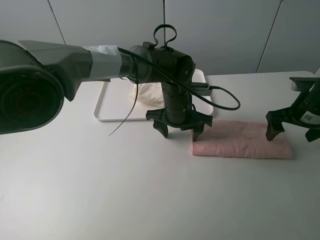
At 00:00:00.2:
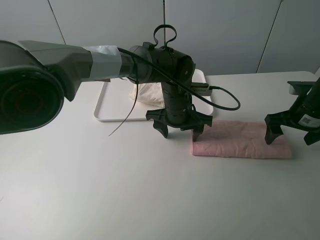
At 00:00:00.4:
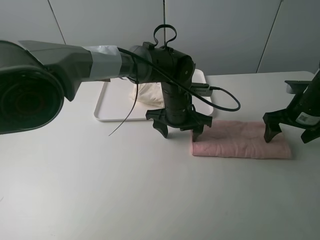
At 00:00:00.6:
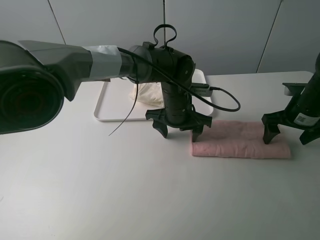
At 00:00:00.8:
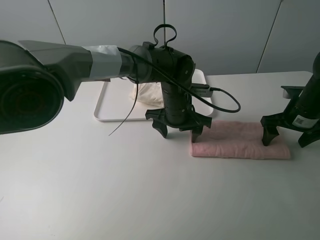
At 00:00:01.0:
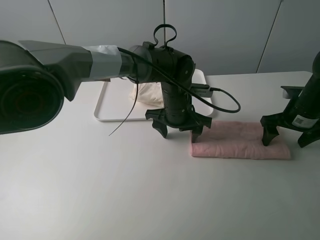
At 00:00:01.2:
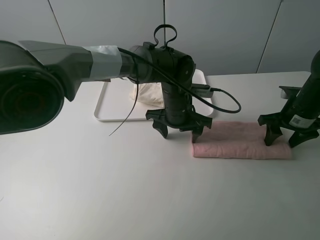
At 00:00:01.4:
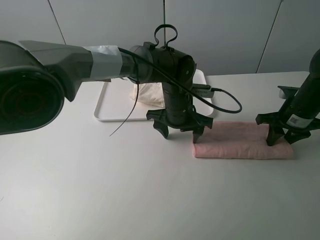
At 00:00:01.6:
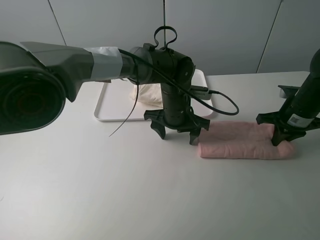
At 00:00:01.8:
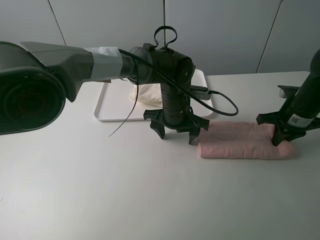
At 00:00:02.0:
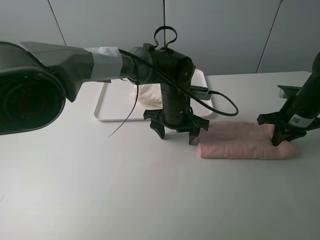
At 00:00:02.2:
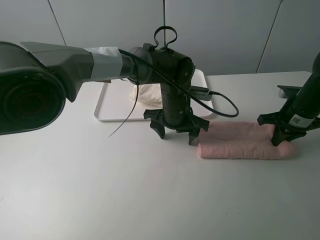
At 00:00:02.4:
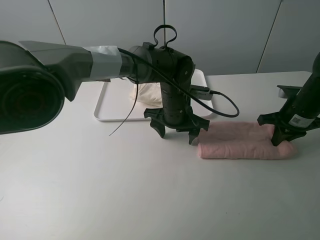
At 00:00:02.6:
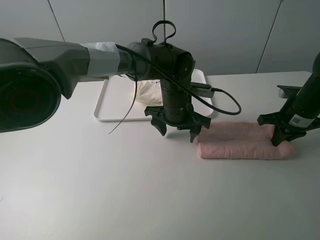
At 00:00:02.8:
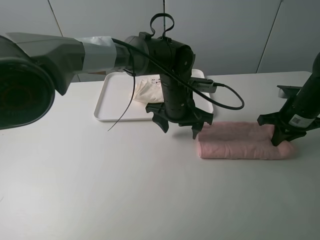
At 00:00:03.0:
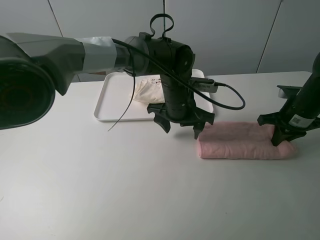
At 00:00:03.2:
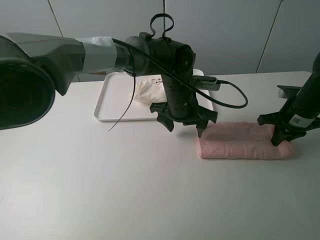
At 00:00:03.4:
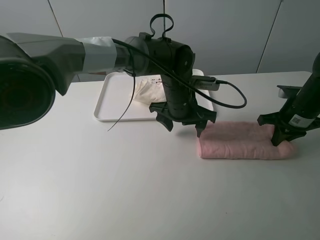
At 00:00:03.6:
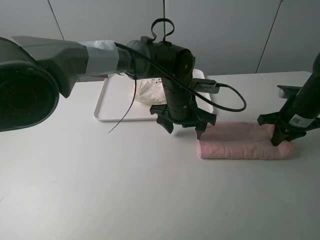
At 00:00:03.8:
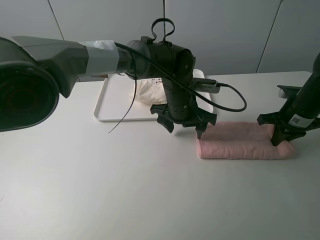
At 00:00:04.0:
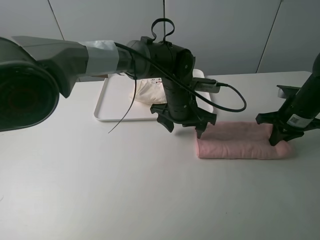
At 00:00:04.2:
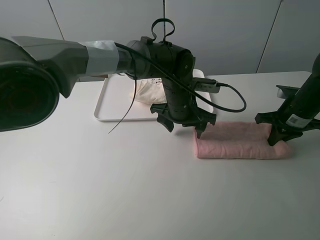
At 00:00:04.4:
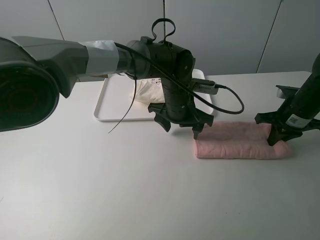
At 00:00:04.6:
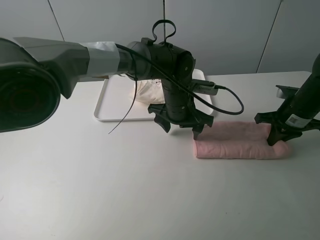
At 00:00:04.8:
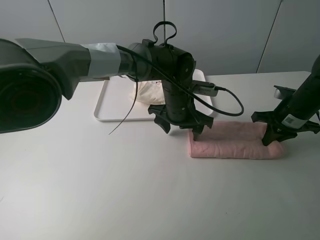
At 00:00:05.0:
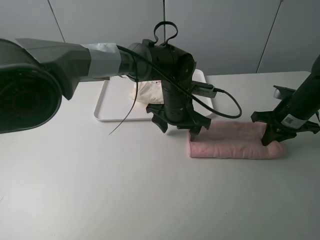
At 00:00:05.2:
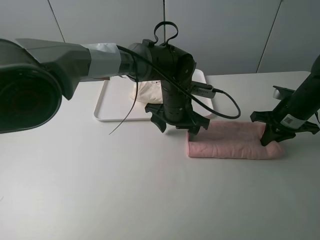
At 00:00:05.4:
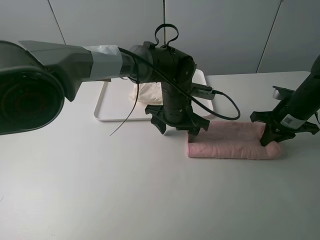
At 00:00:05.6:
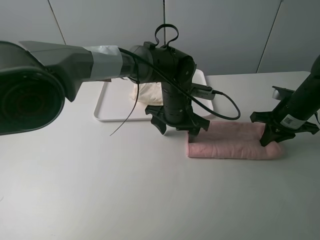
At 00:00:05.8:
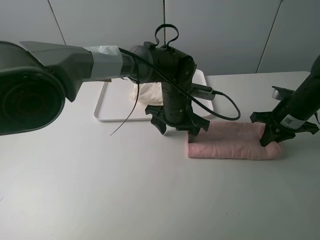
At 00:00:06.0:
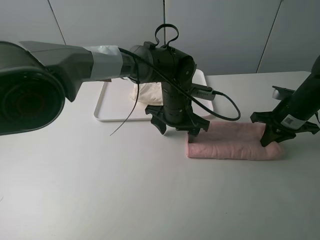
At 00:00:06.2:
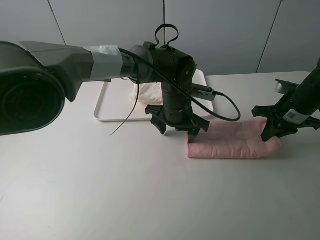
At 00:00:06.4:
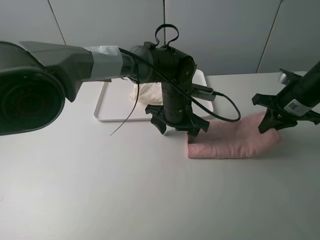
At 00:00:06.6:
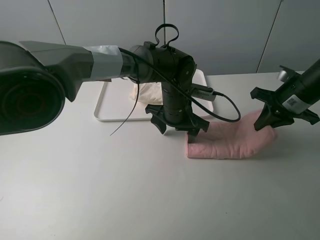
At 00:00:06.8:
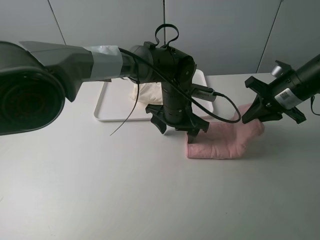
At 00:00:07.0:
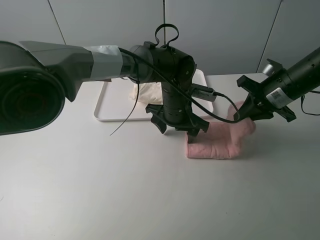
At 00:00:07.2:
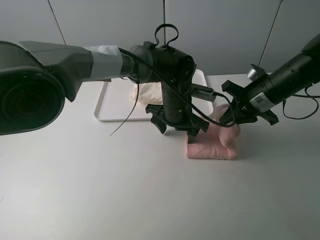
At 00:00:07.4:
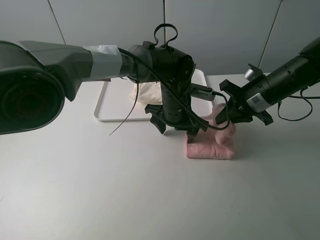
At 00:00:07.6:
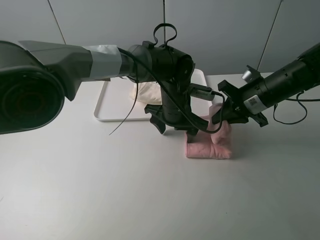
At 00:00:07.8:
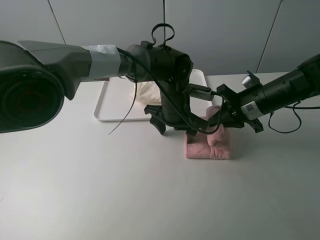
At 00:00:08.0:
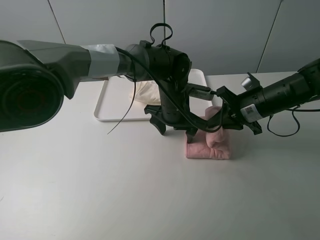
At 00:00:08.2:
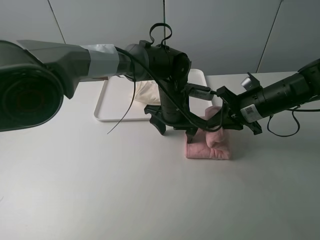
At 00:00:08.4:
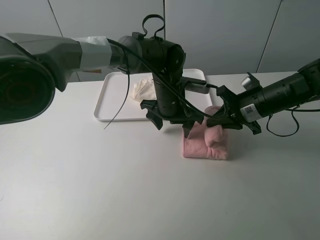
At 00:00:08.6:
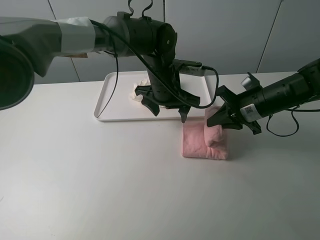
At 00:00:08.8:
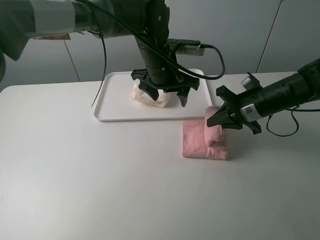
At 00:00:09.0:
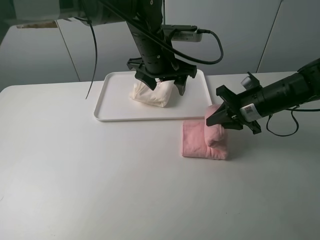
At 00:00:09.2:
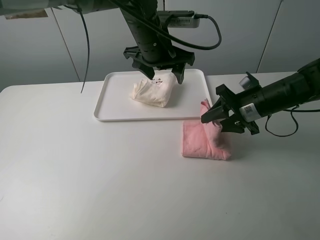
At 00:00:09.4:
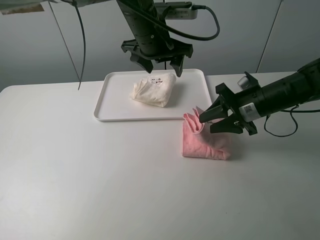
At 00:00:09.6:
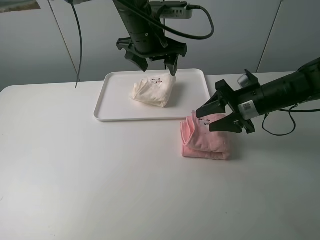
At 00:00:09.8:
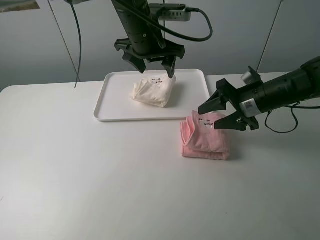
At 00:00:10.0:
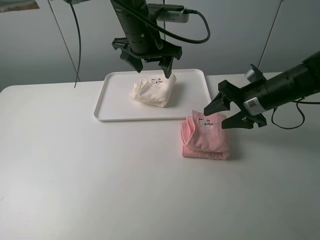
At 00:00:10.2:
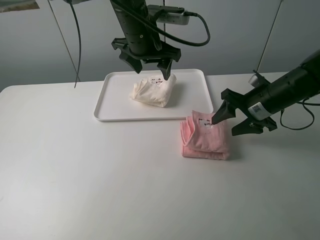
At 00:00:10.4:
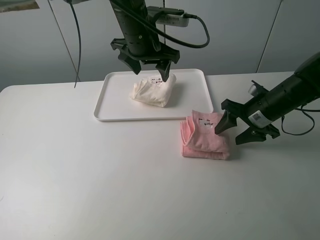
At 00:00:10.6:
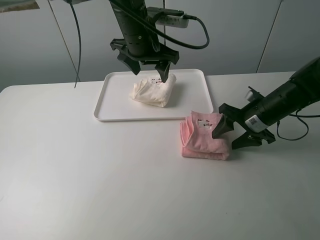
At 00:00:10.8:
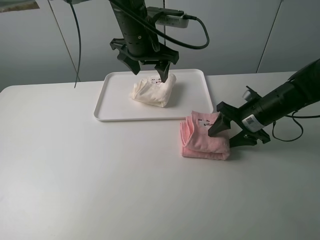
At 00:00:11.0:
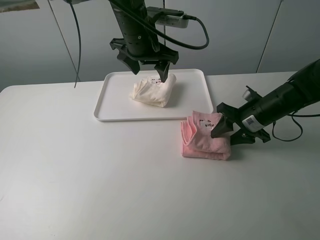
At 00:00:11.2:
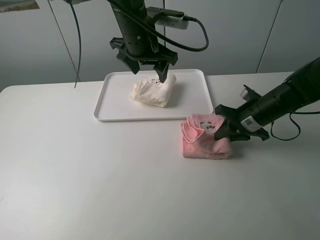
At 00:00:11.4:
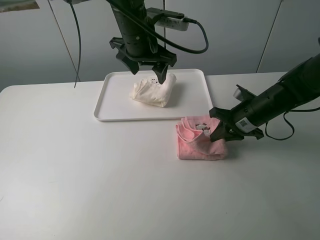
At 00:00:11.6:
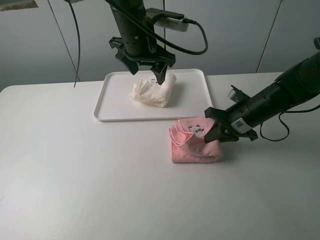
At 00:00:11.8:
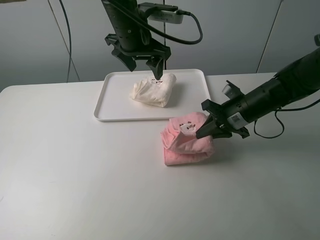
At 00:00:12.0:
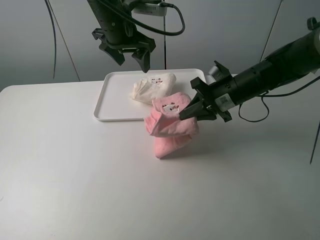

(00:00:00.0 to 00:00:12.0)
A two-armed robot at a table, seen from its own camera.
Task of the whole recording: fold one of the towels by two grippers and place it on the tray,then fold another towel by two grippers and place it on the folded towel.
Step, 00:00:00.0 - 00:00:01.8: Grasp the pink towel with the right gripper.
Step, 00:00:02.0 - 00:00:10.2: Fold the pink towel from right to left with right gripper.
Step, 00:00:10.4 - 00:00:11.4: Grasp the pink towel with the right gripper.
00:00:00.0 - 00:00:01.6: The right gripper closes its fingers.
00:00:01.6 - 00:00:03.0: There are only small adjustments of the grippers.
00:00:03.0 - 00:00:04.4: Neither gripper changes place.
00:00:04.4 - 00:00:06.0: The grippers make only small movements.
00:00:06.0 - 00:00:07.6: The right gripper is displaced to the left by about 10 cm.
00:00:07.6 - 00:00:09.0: The left gripper shifts roughly 10 cm upward.
00:00:09.0 - 00:00:10.4: The right gripper opens.
00:00:10.4 - 00:00:12.0: Both grippers move to the left, approximately 5 cm. The right gripper closes up.

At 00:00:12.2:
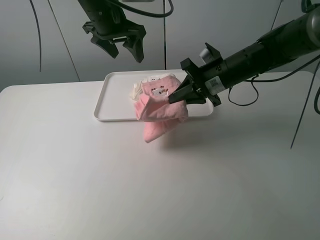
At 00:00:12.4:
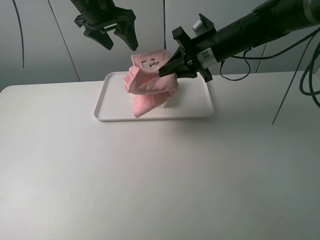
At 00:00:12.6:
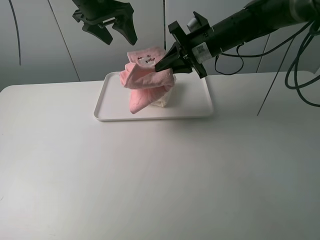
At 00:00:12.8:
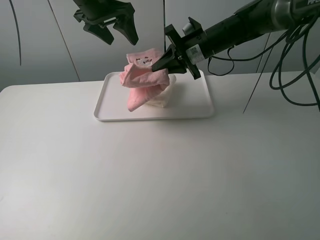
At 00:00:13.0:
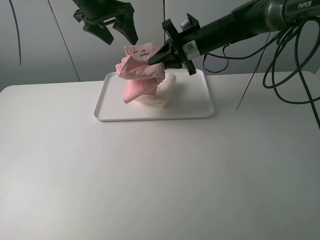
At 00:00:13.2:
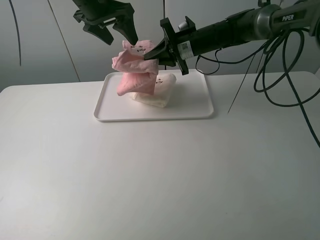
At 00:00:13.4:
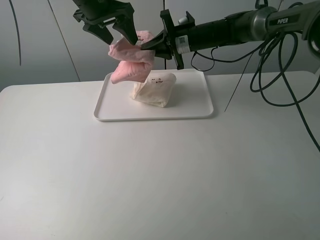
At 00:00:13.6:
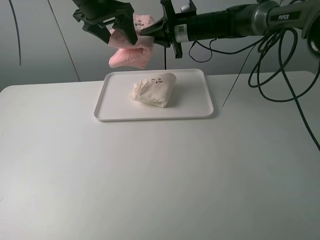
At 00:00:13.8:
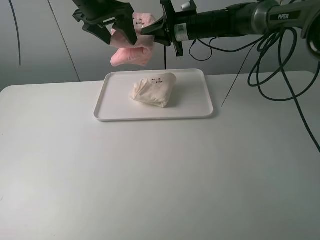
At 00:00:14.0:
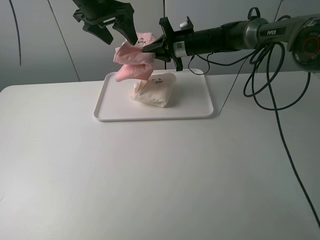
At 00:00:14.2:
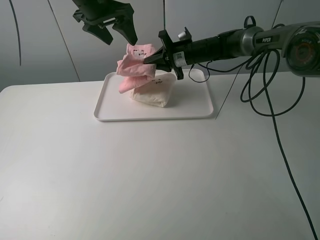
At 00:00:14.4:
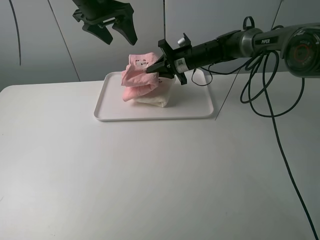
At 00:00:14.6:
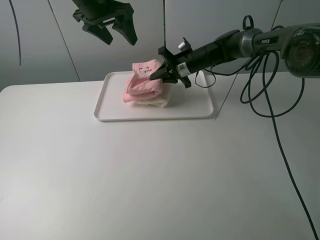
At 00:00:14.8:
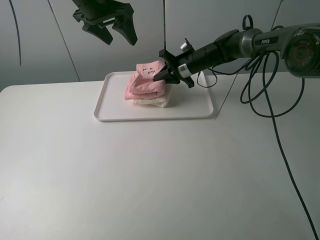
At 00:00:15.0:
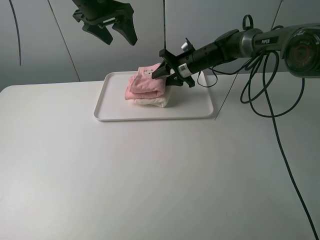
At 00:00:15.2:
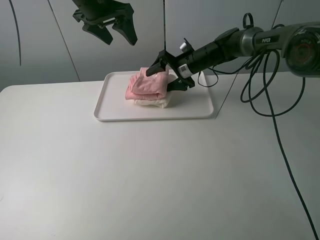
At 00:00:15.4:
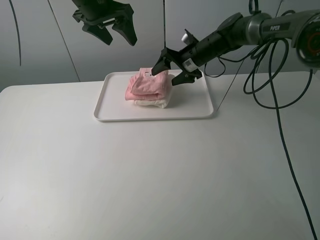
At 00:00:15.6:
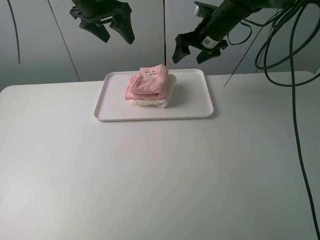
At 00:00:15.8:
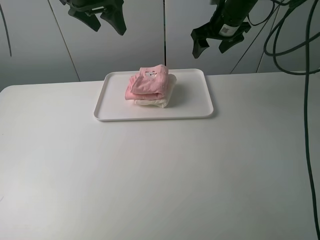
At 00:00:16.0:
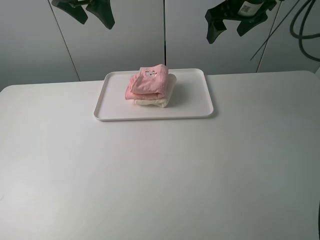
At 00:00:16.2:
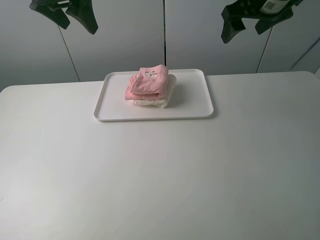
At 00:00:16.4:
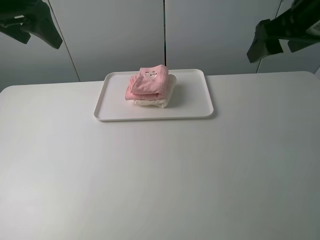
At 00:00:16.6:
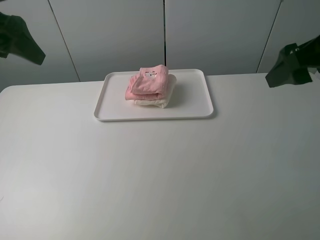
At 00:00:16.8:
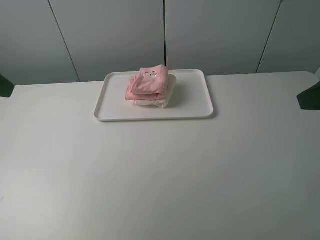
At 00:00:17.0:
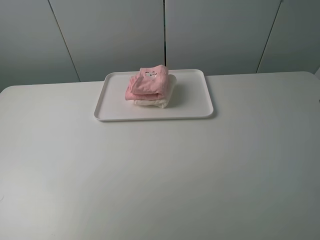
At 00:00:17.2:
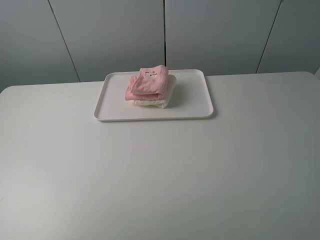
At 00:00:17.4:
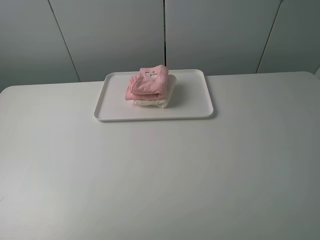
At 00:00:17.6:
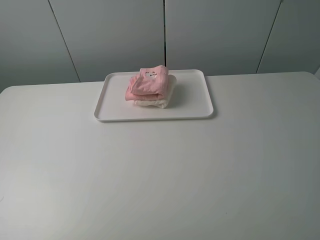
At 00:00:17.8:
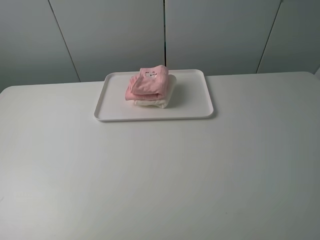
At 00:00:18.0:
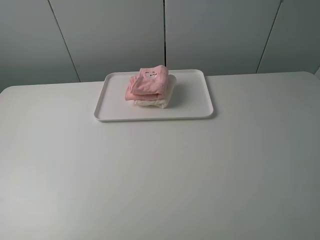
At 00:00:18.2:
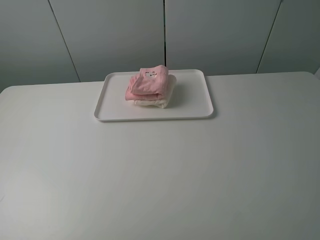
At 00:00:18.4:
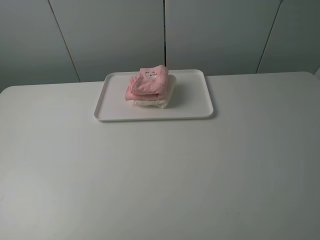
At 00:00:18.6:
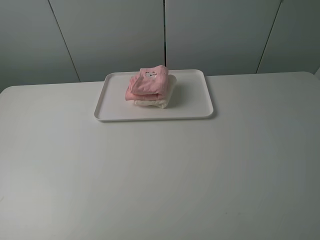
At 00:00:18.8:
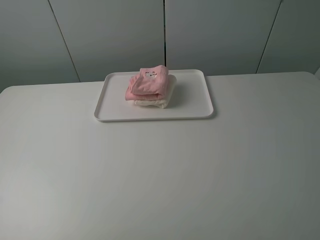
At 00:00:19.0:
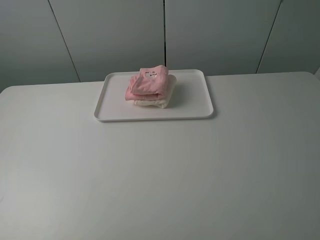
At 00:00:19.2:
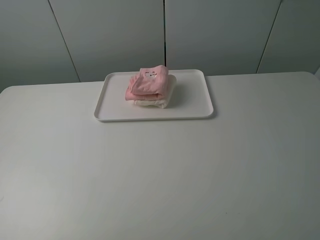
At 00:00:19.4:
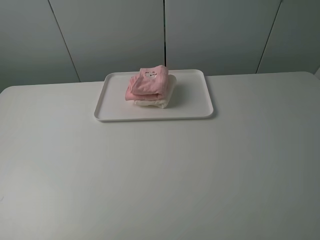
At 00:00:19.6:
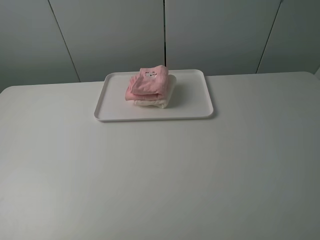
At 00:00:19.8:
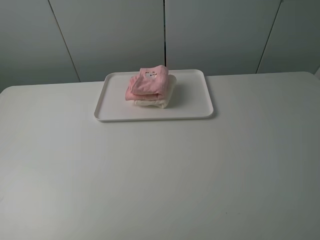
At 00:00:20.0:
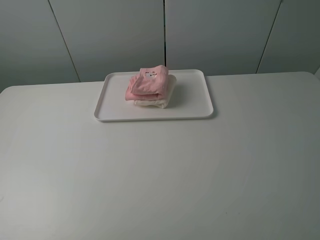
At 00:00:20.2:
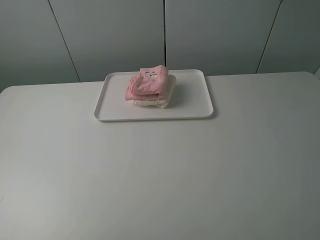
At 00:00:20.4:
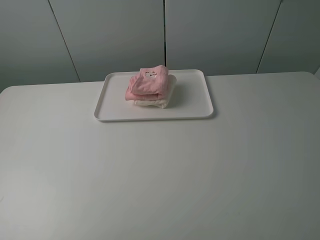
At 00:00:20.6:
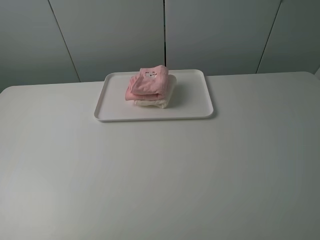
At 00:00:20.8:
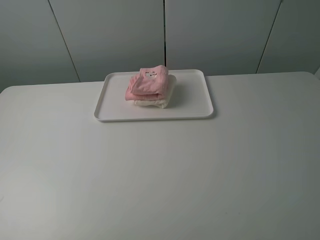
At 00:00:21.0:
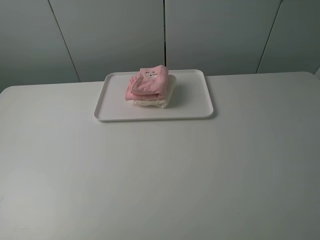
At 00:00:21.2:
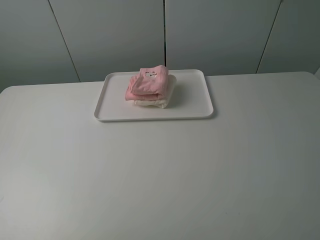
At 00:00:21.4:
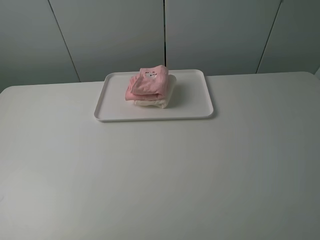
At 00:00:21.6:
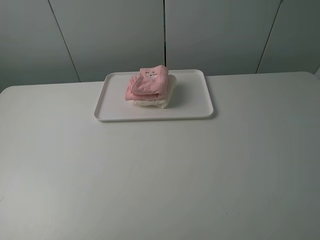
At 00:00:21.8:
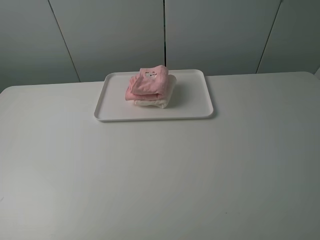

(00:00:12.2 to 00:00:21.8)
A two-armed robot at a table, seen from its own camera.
Task of the whole recording: fold one of the towels by two grippers and place it on the tray,then fold another towel by two grippers and place it on the folded towel.
Step, 00:00:12.2 - 00:00:15.4: Place the pink towel on the white towel with the right gripper.
00:00:12.2 - 00:00:13.8: The right gripper goes roughly 15 cm forward.
00:00:13.8 - 00:00:15.4: The right gripper opens.
00:00:15.4 - 00:00:17.0: The left gripper moves backward and to the left, about 35 cm, while the right gripper moves backward and upward, some 40 cm.
00:00:20.2 - 00:00:21.8: Both grippers stay about where they are.
